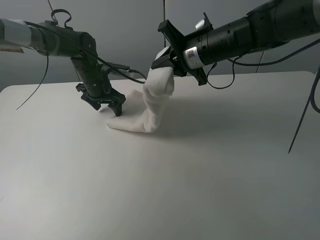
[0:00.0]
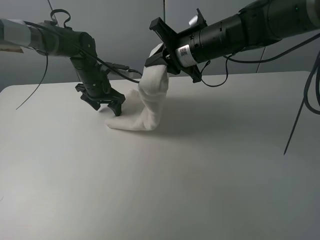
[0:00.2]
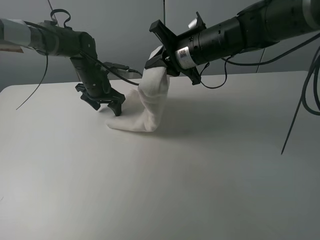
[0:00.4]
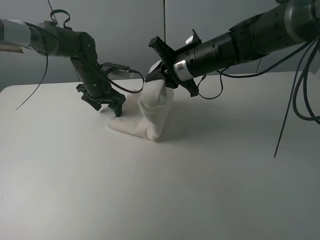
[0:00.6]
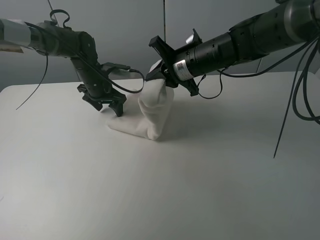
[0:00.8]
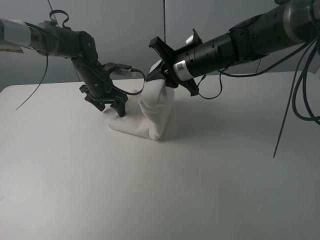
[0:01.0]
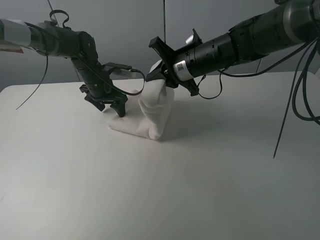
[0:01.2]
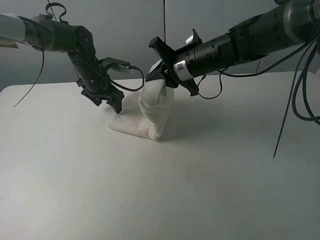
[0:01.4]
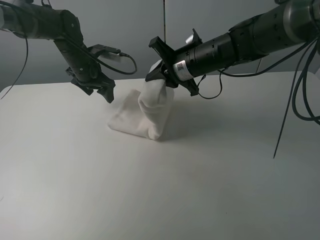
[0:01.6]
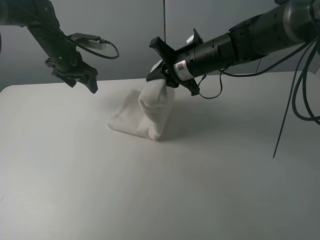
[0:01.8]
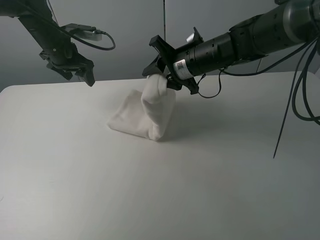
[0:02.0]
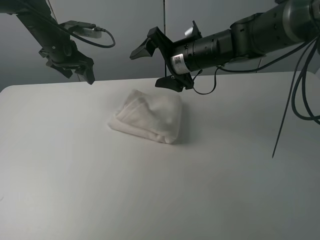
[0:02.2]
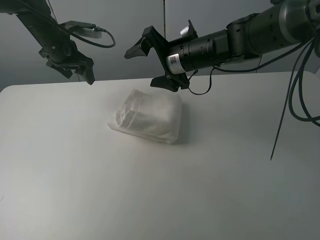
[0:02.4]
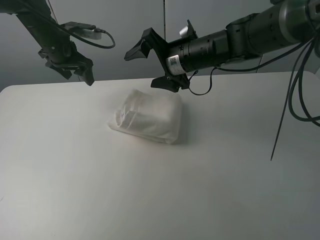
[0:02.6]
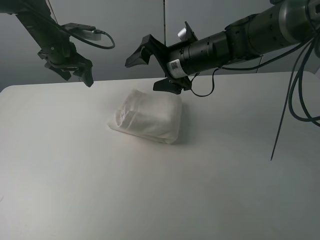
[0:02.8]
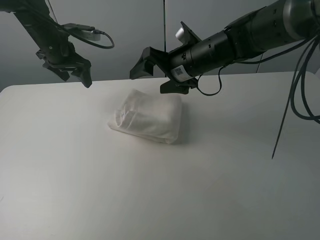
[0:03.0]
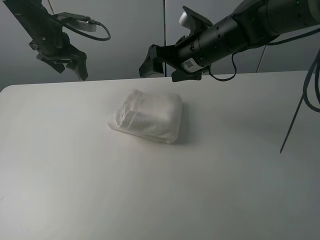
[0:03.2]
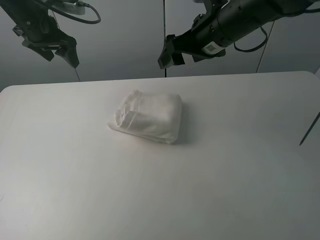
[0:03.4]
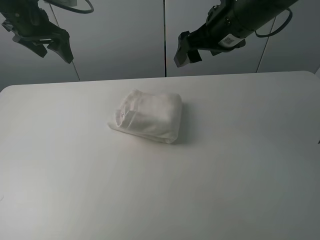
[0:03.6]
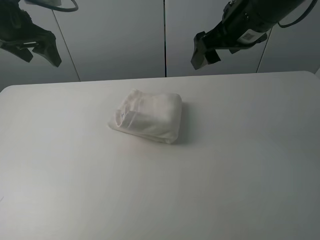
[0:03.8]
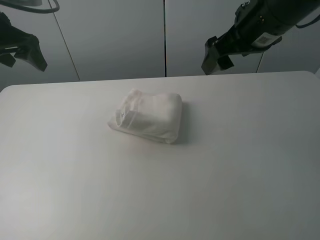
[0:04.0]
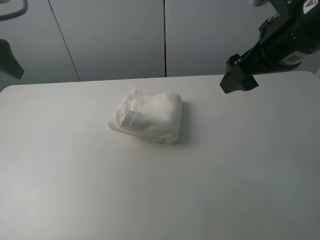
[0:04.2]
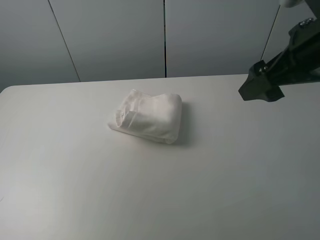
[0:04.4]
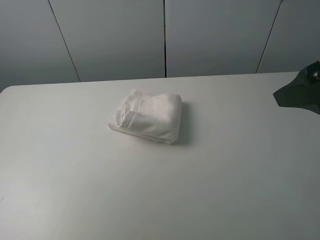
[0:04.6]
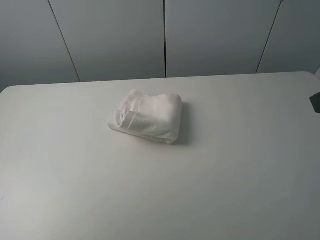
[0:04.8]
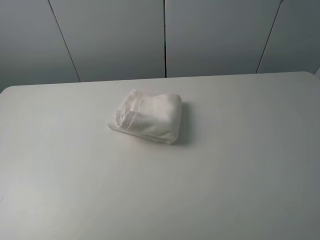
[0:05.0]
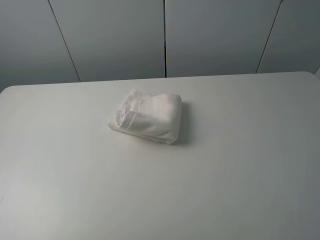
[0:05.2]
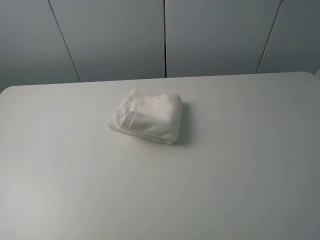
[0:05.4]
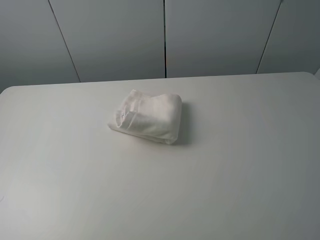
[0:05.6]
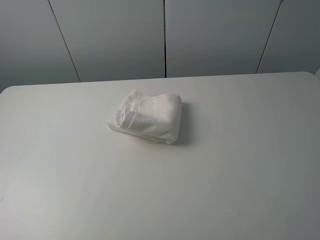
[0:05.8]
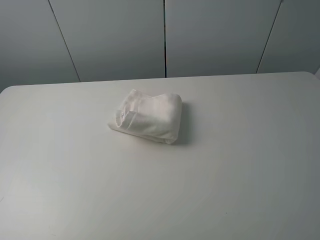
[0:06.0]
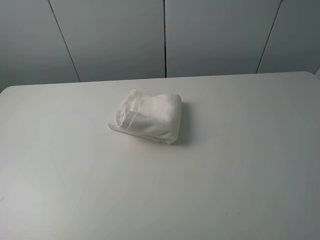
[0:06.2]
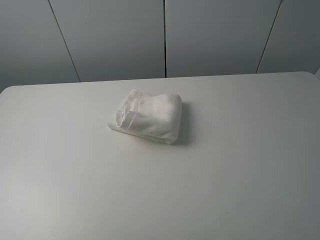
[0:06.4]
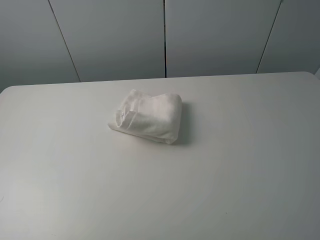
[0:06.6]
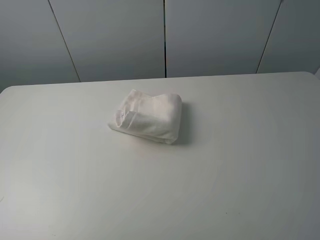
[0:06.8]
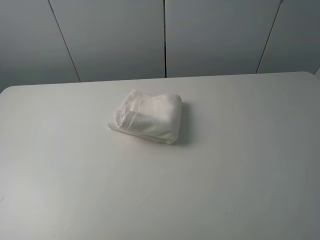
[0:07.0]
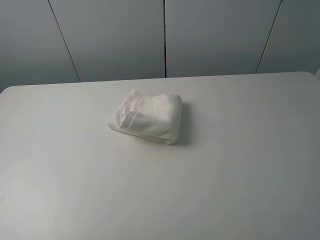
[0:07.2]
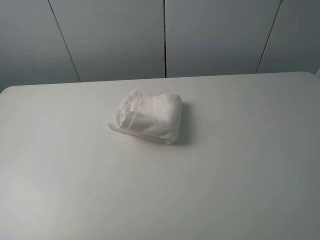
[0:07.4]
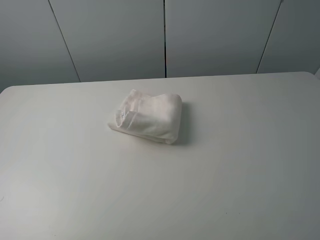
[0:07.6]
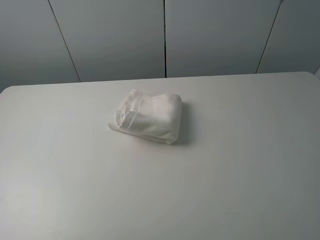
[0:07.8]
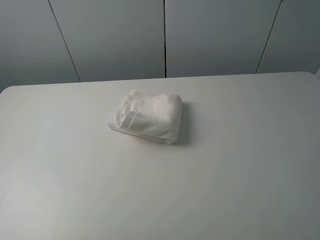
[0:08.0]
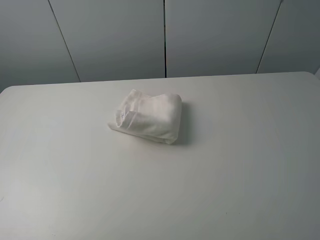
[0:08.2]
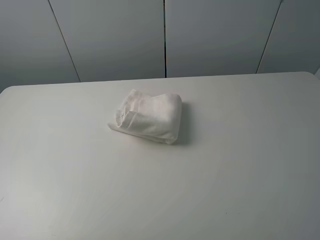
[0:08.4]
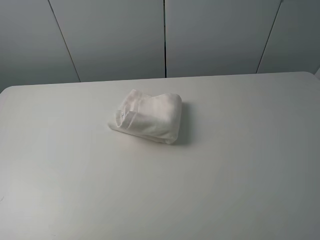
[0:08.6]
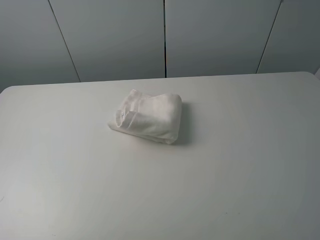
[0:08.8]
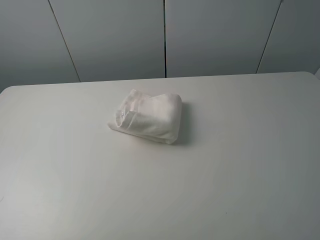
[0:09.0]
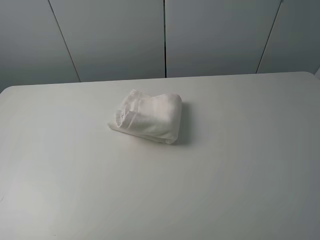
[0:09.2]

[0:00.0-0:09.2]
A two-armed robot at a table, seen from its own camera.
Task of the whole recording: fold the towels on the table.
Step, 0:00.0 to 0:02.2: Fold the white towel from right to left with right gripper.
0:00.0 to 0:01.6: The left gripper travels upward by some 5 cm.
0:01.6 to 0:03.0: The left gripper goes roughly 5 cm upward. The right gripper opens its fingers.
0:03.0 to 0:04.6: The right gripper shifts roughly 30 cm backward, to the right and upward, while the left gripper is displaced backward, to the left and upward by some 35 cm.
0:04.6 to 0:06.2: The right gripper is displaced backward by some 15 cm.
0:07.6 to 0:09.2: Both grippers stay put.
